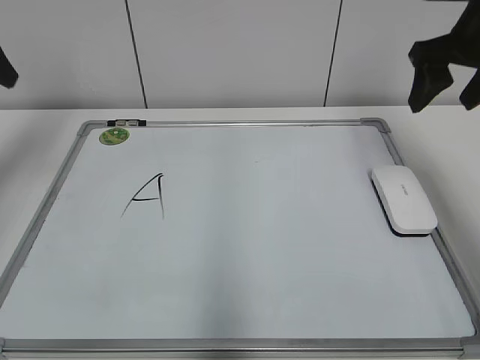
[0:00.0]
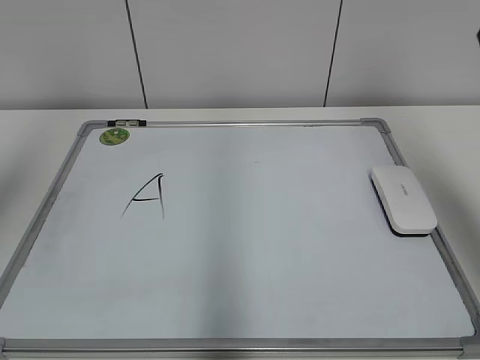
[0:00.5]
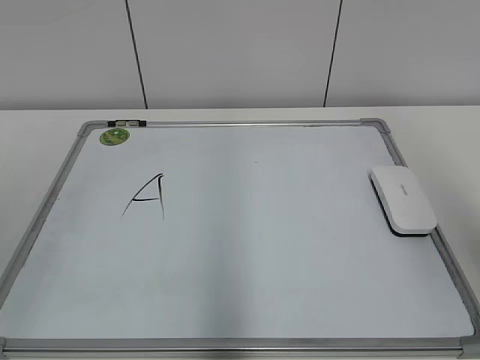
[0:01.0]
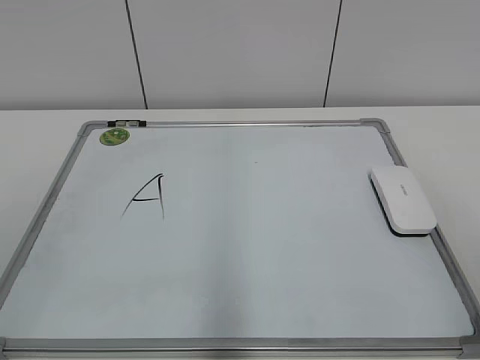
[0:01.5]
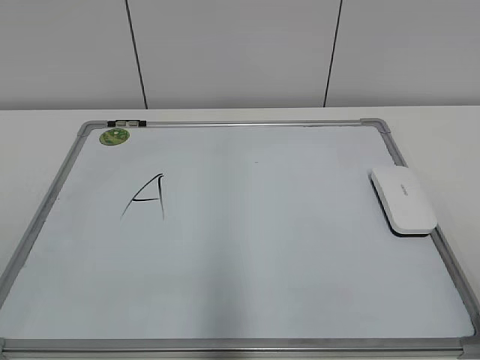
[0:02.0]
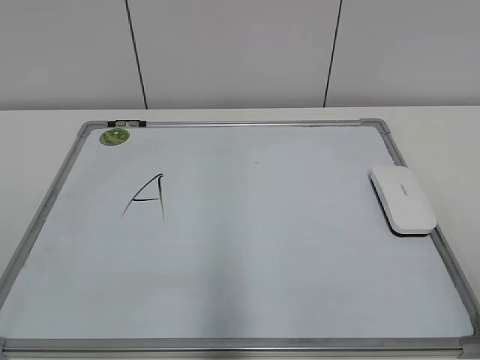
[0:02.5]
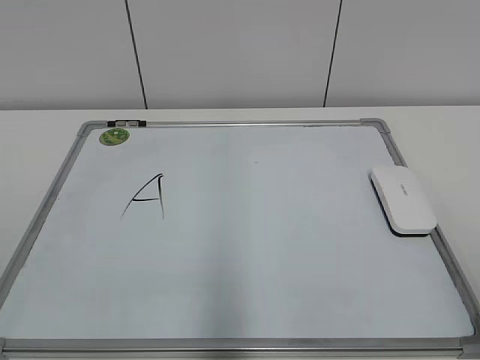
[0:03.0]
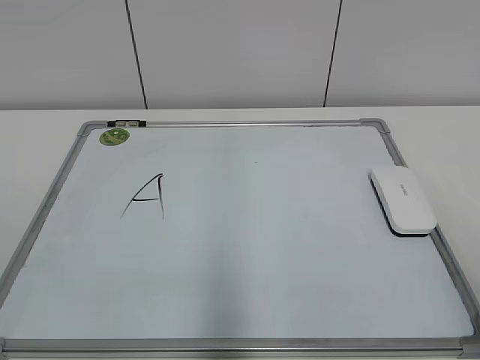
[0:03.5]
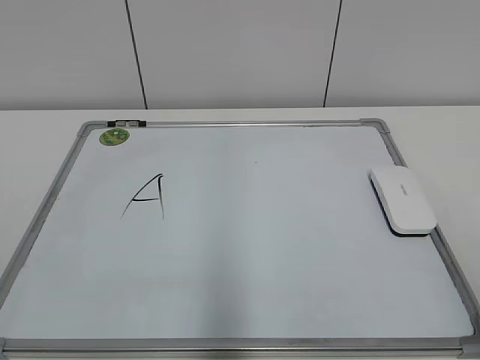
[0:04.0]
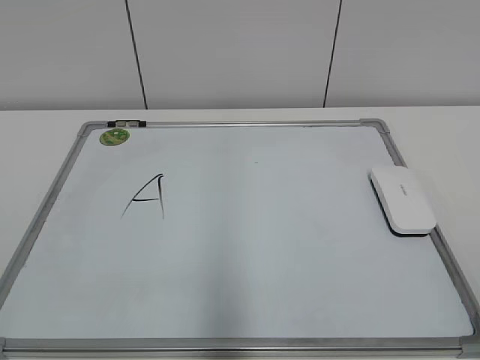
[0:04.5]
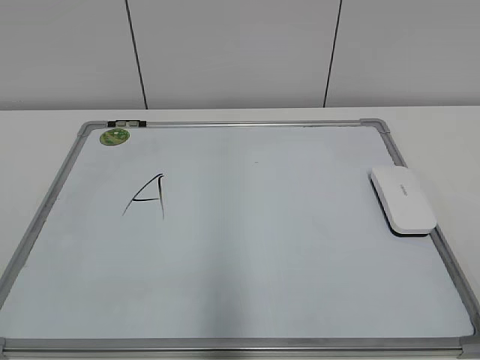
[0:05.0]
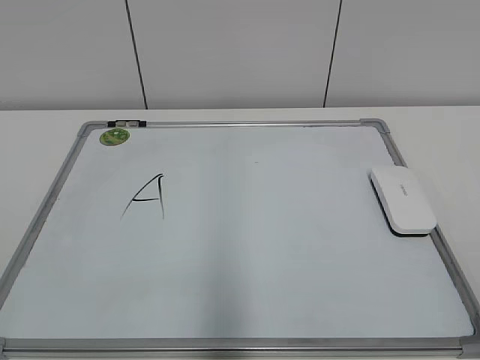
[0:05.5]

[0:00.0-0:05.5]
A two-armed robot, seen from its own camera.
Task of the whole recording: pick up the eraser on the blackboard and erase the letter "a".
0:00.0 to 0:02.0: Both grippers move backward, approximately 35 cm.

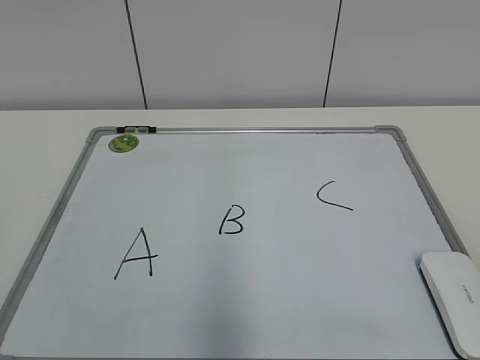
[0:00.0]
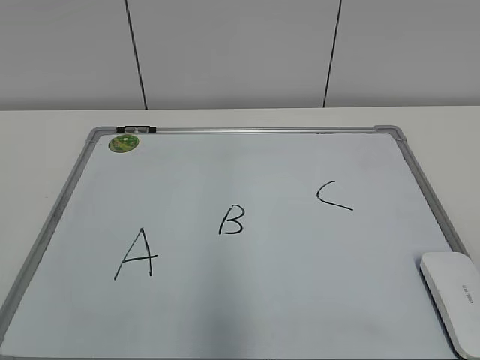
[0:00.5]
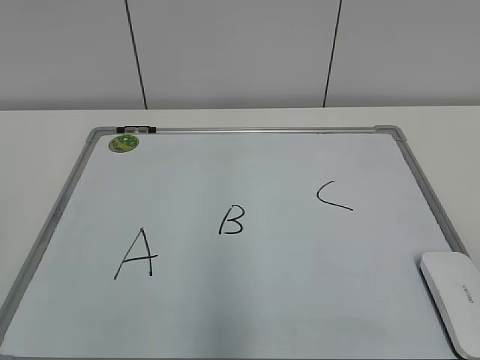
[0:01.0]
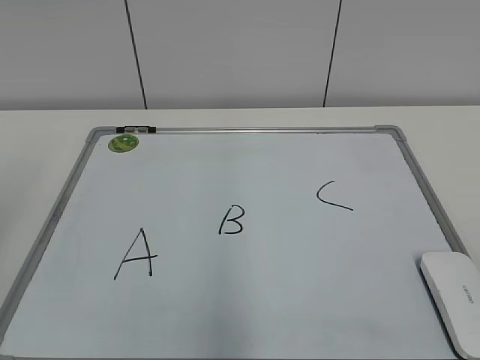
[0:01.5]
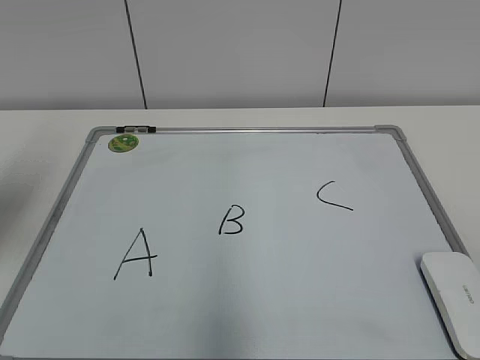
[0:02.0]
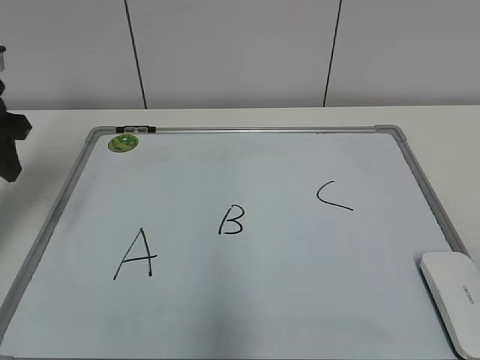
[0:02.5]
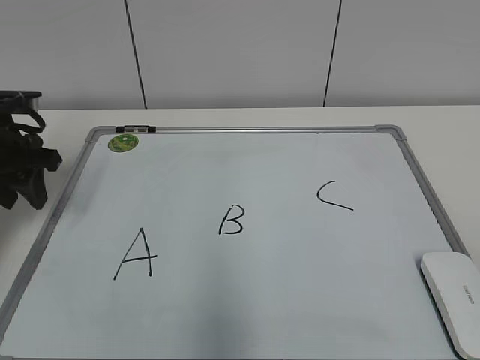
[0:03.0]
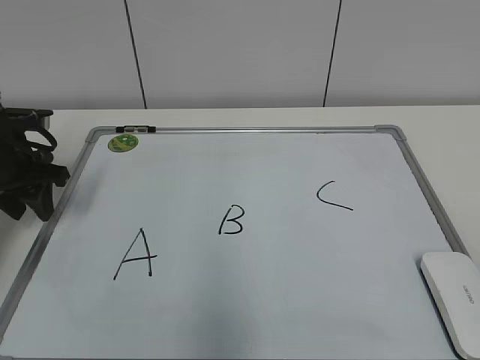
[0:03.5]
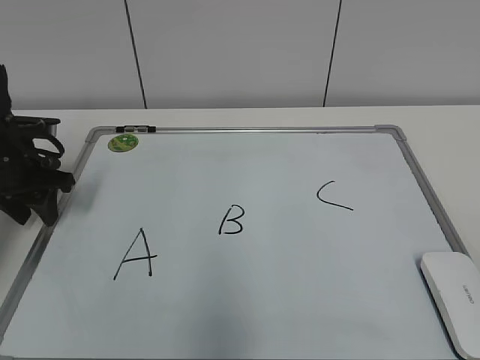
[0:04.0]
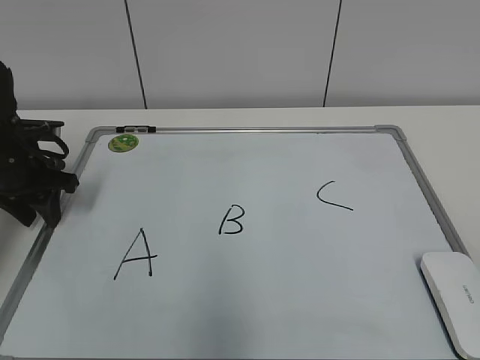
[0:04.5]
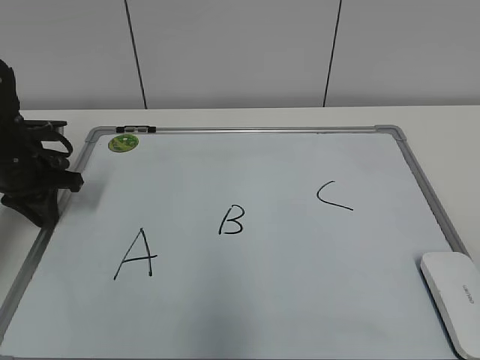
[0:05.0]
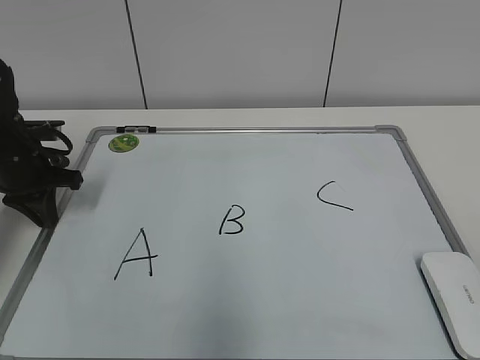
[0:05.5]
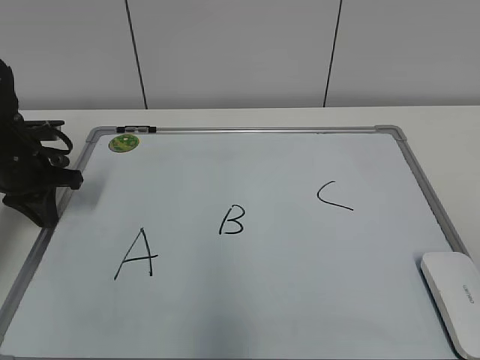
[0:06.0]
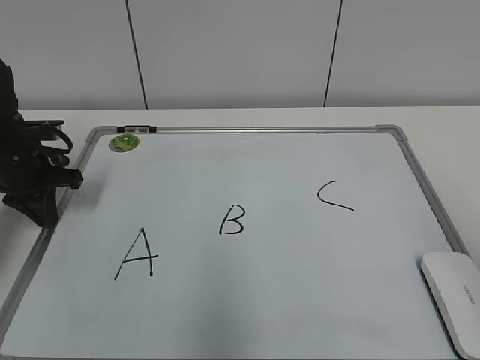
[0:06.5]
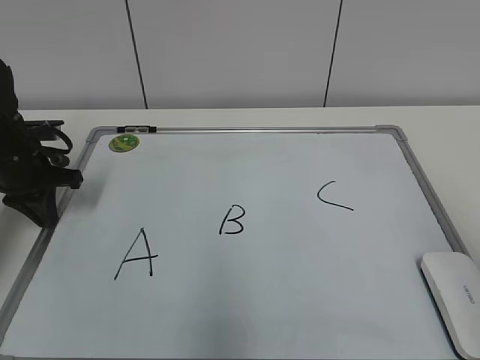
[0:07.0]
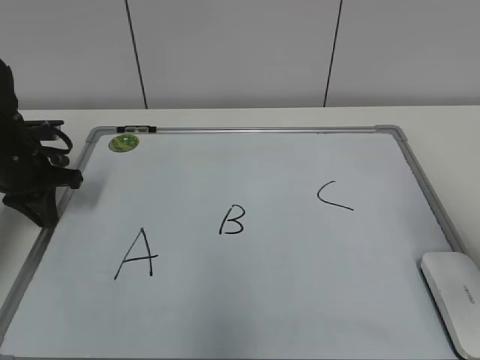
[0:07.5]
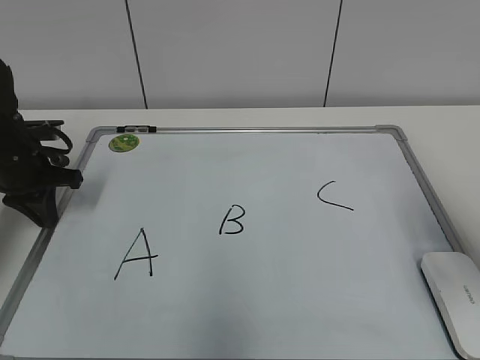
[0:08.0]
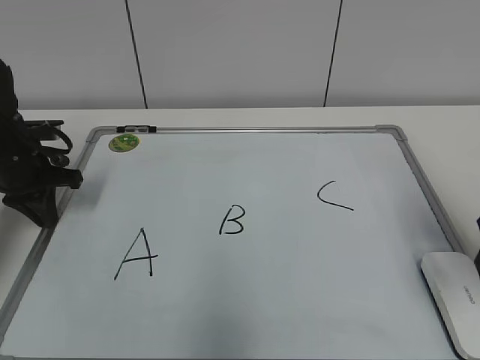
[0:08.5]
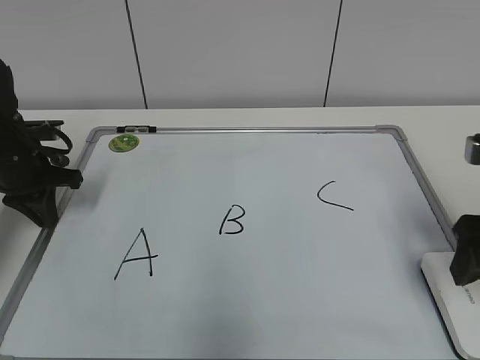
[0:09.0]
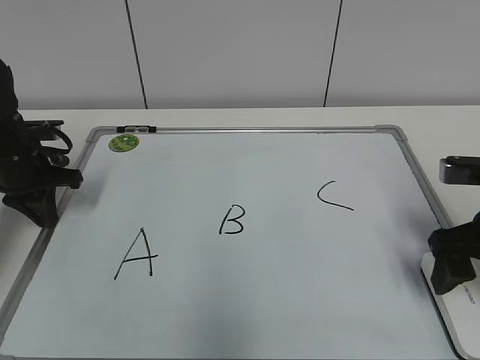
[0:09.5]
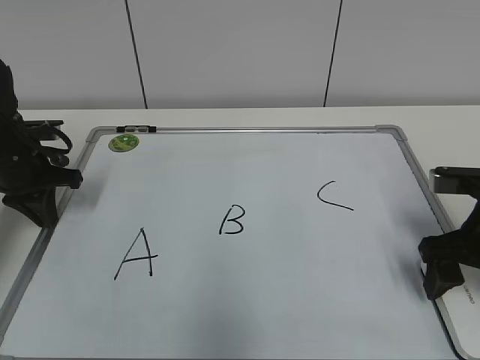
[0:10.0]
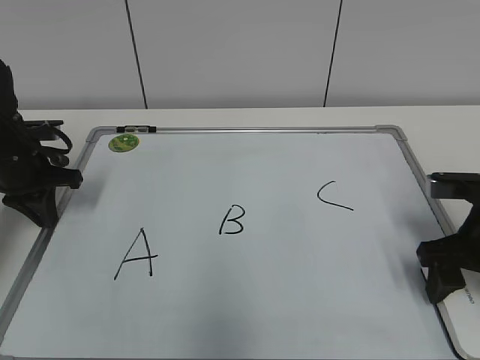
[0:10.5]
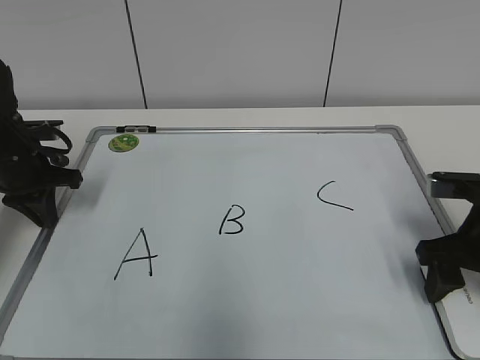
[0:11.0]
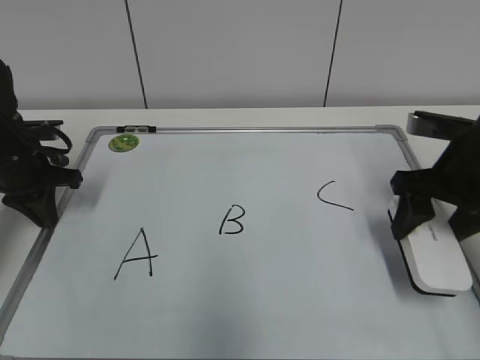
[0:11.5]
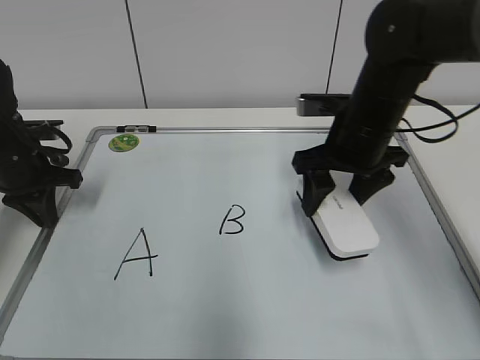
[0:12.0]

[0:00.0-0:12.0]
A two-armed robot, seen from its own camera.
Task of the whole recording: pick up the eraser on the blackboard and erase the letter "B".
Step, 0:00.0 to 0:04.5: Hold the drawing board steady with your left hand.
Step, 0:05.0 to 0:10.5: Grab the eraser with your right hand.
0:02.0 to 0:04.0: The left gripper moves downward and forward, some 20 cm.
0:04.0 to 0:06.0: The left gripper closes its fingers.
0:06.0 to 0:08.0: The right gripper is displaced forward by approximately 20 cm.
0:08.0 to 0:10.0: The right gripper travels downward and forward by some 10 cm, and opens its fingers.
0:10.0 to 0:12.0: The right gripper is displaced to the left and forward by roughly 15 cm, and closes its fingers.

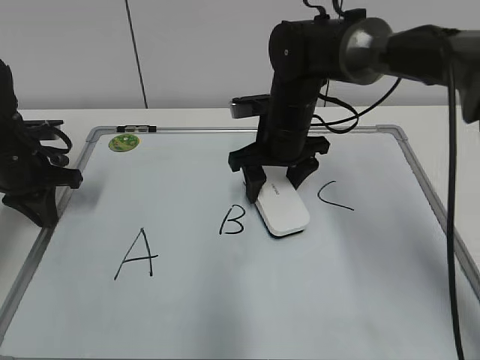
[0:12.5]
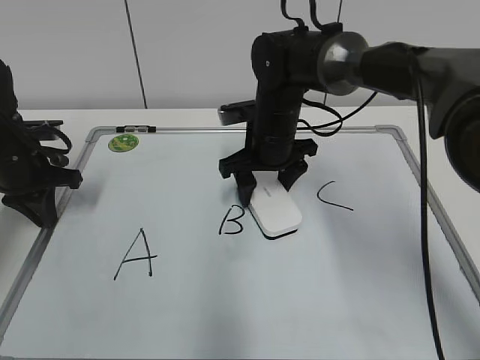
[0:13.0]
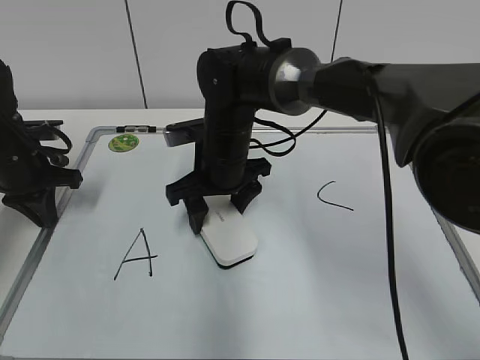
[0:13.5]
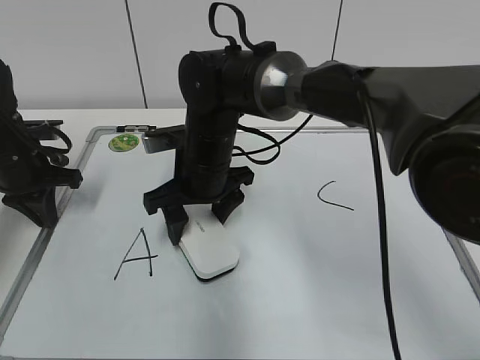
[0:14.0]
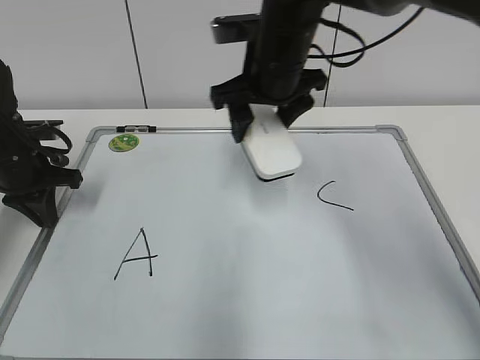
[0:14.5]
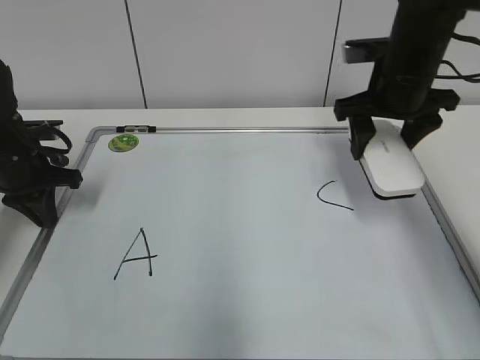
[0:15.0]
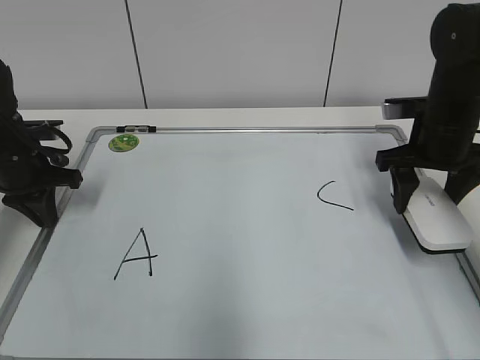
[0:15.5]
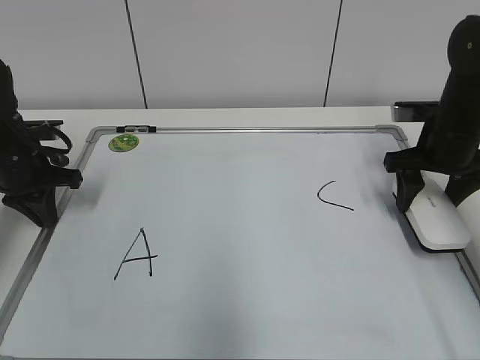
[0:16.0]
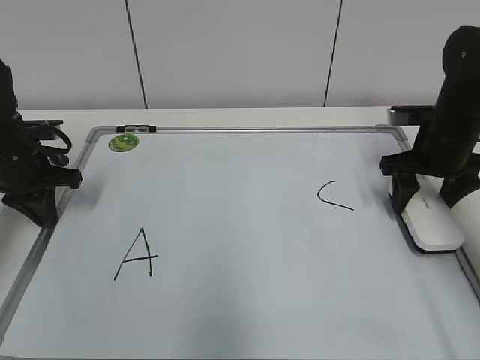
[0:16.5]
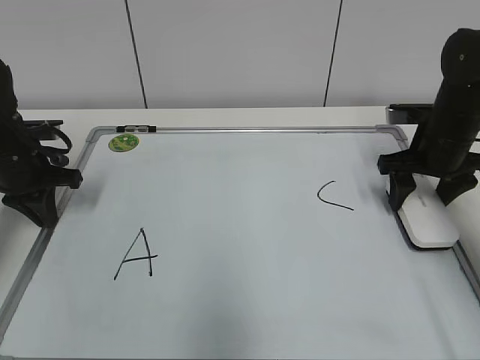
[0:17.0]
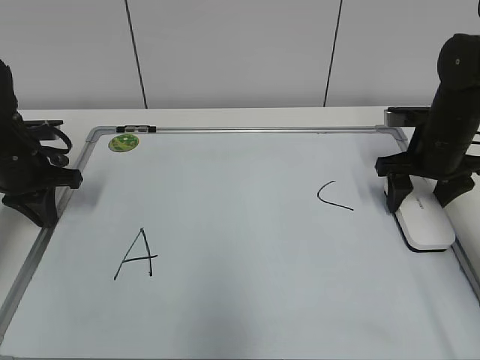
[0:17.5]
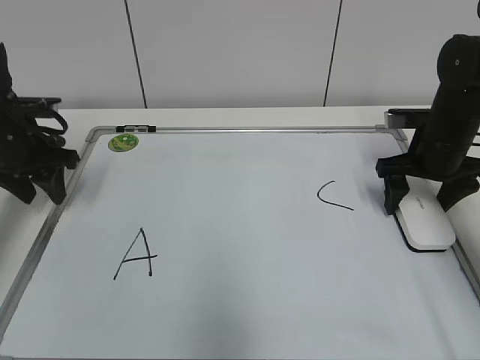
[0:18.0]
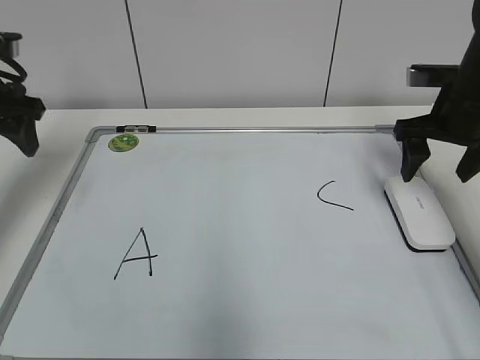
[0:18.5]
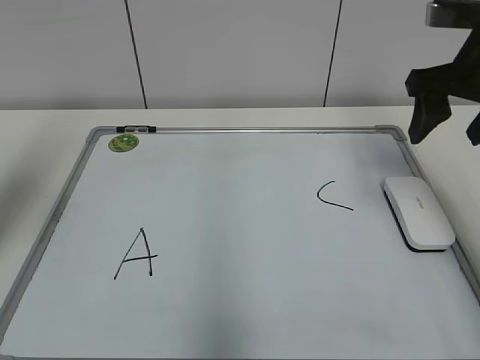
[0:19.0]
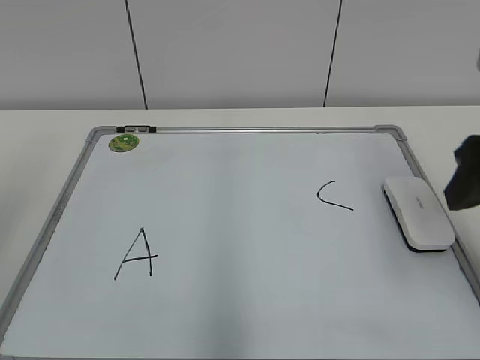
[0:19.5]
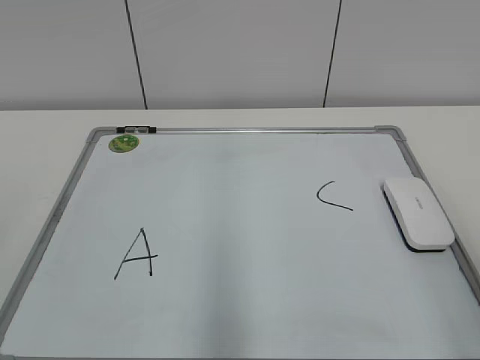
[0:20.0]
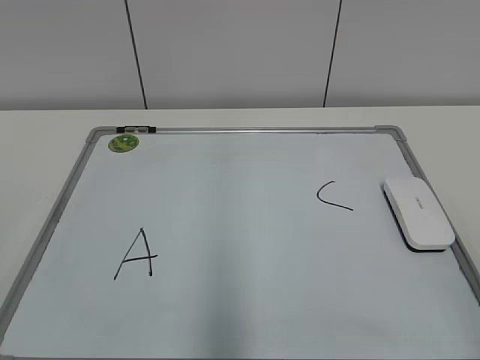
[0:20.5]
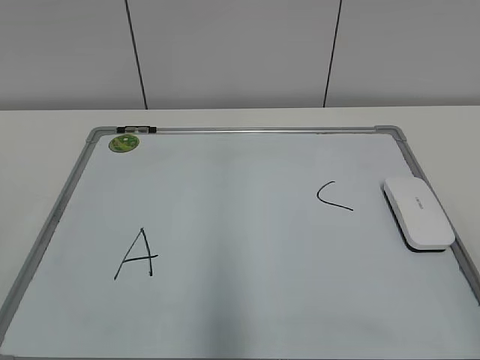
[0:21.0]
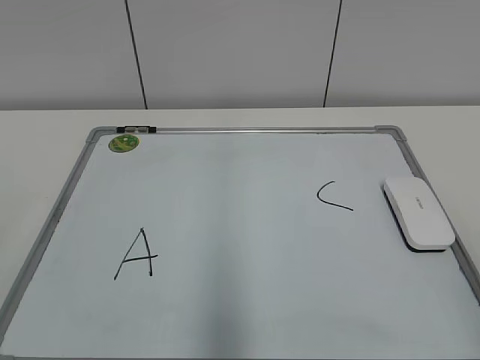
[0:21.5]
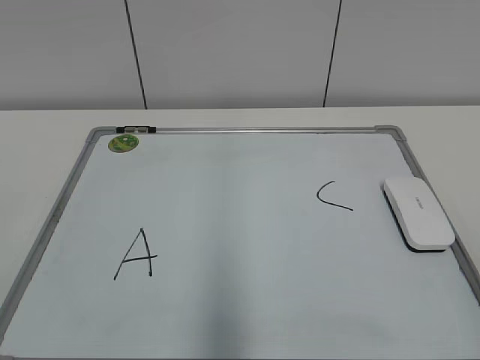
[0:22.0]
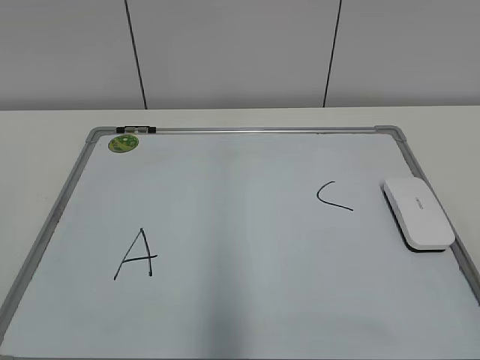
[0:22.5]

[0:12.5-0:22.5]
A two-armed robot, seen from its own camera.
Task of the whole recording: pick up the eraser on the blackboard and erase the letter "B".
0:12.5 to 0:14.5: The right gripper shifts roughly 10 cm upward.
0:14.5 to 0:16.5: The right gripper travels to the right and downward by about 25 cm.
0:16.5 to 0:18.5: The right gripper is displaced upward by roughly 5 cm, and opens, while the left gripper moves upward, about 10 cm, and opens its fingers.
0:18.5 to 0:20.5: The grippers both shift backward by approximately 35 cm.
